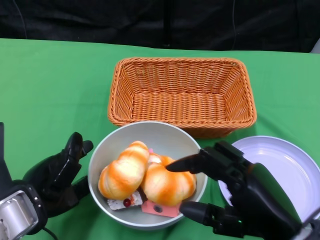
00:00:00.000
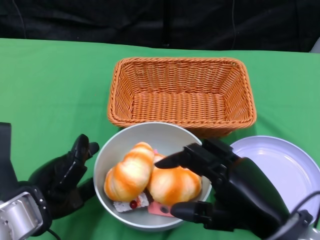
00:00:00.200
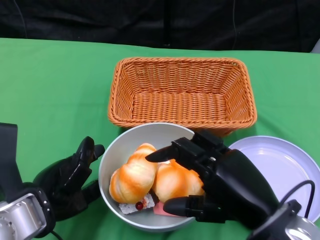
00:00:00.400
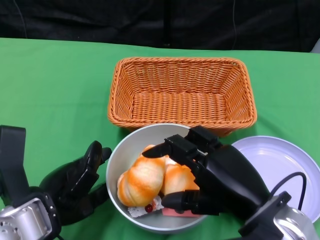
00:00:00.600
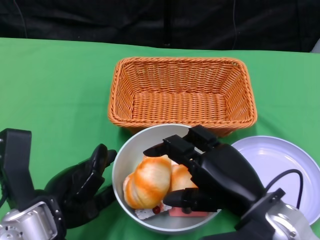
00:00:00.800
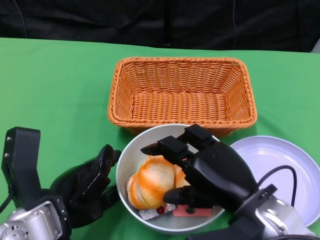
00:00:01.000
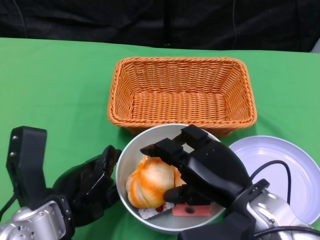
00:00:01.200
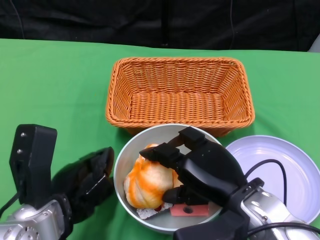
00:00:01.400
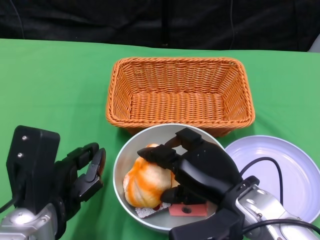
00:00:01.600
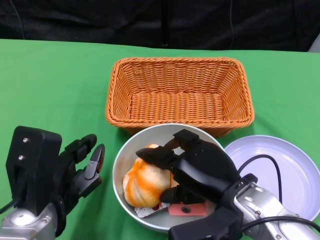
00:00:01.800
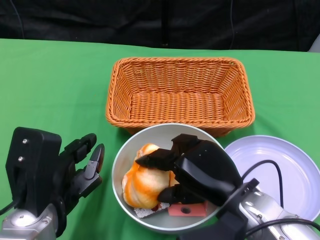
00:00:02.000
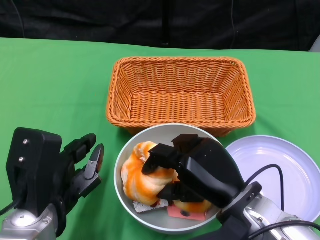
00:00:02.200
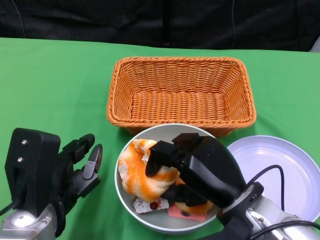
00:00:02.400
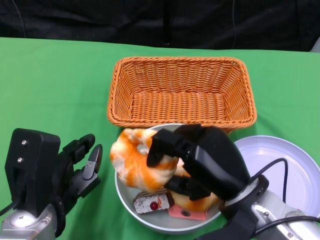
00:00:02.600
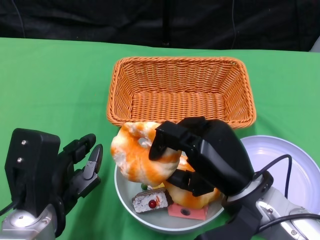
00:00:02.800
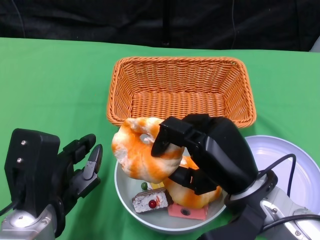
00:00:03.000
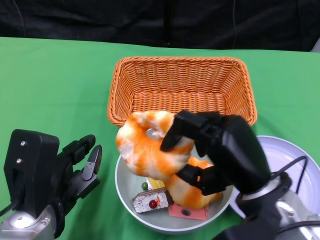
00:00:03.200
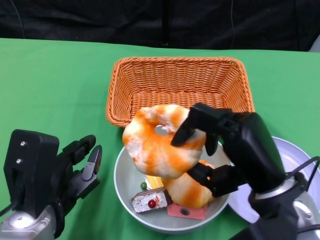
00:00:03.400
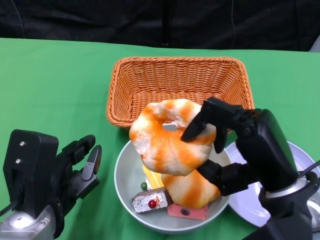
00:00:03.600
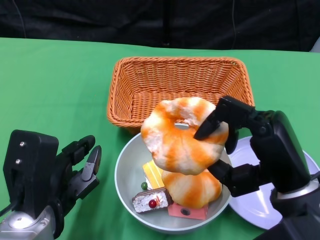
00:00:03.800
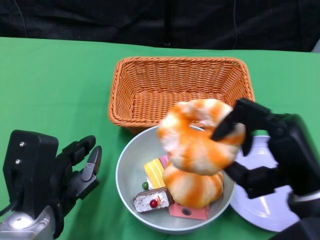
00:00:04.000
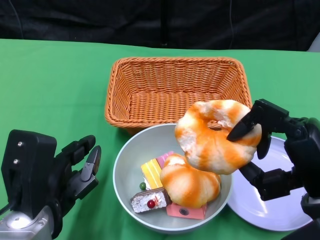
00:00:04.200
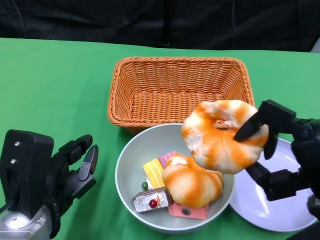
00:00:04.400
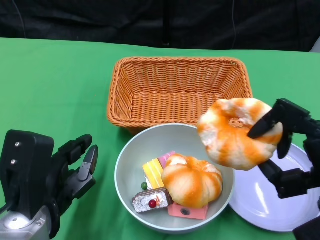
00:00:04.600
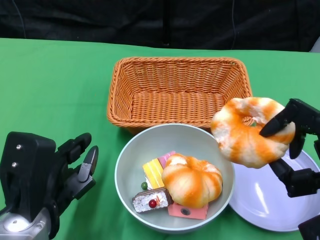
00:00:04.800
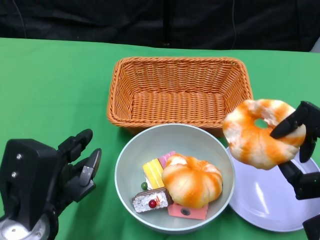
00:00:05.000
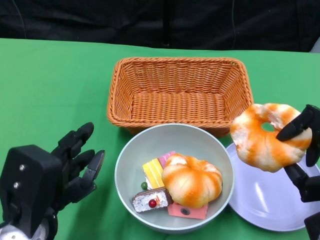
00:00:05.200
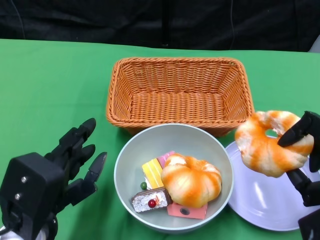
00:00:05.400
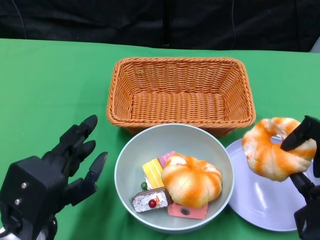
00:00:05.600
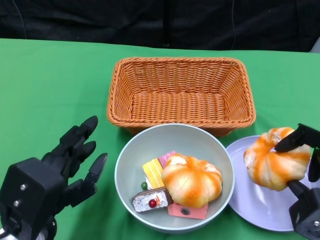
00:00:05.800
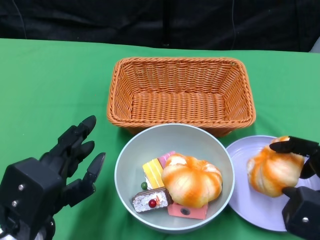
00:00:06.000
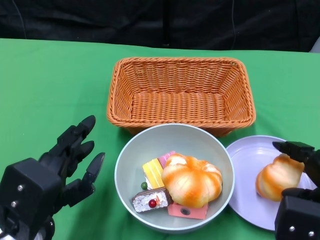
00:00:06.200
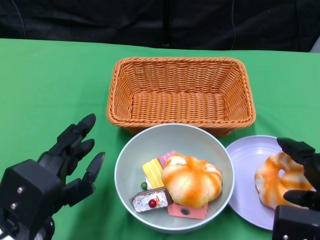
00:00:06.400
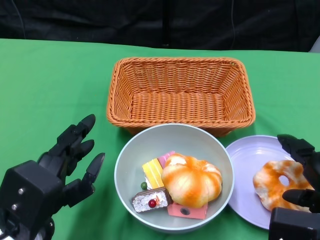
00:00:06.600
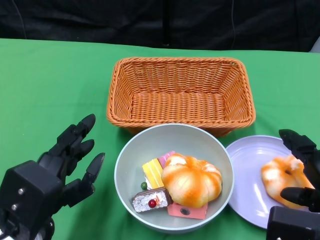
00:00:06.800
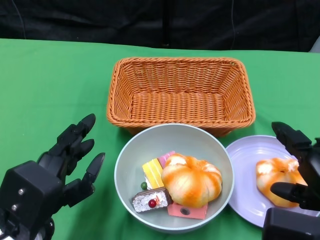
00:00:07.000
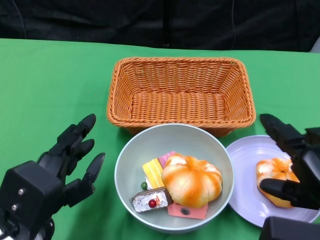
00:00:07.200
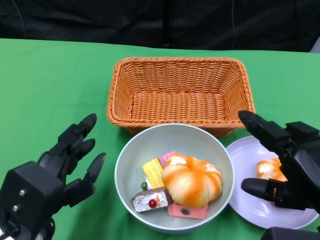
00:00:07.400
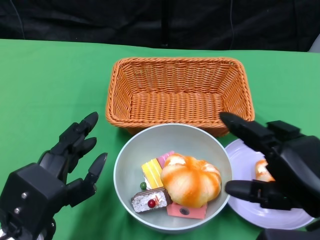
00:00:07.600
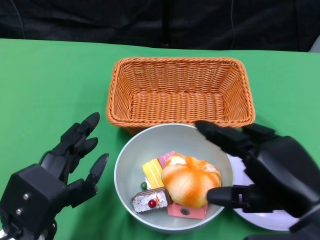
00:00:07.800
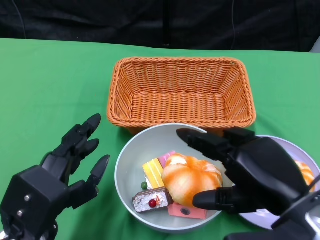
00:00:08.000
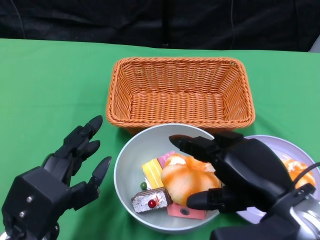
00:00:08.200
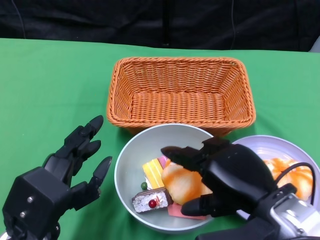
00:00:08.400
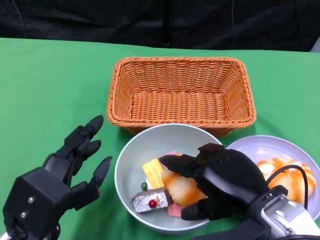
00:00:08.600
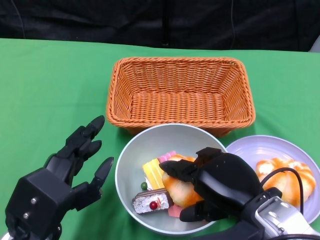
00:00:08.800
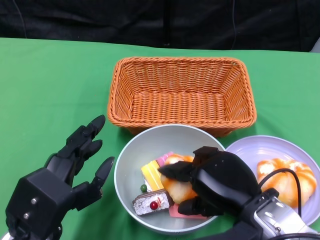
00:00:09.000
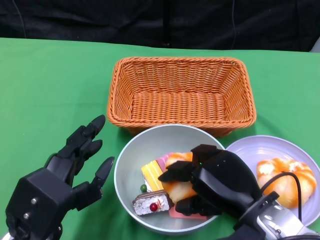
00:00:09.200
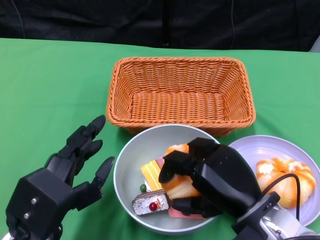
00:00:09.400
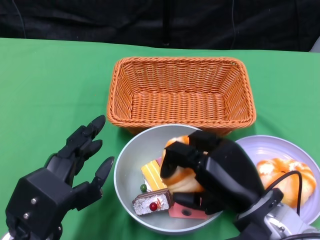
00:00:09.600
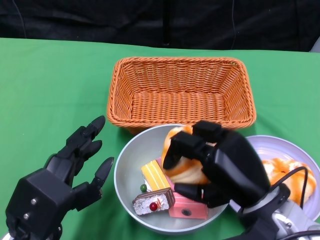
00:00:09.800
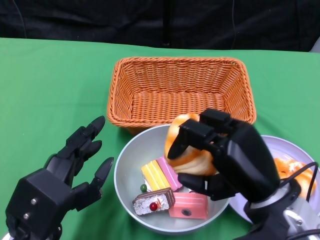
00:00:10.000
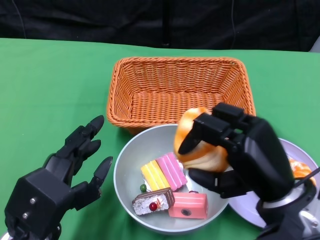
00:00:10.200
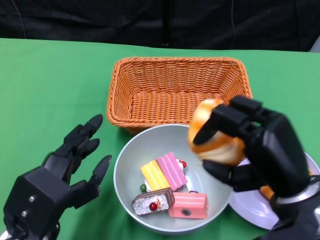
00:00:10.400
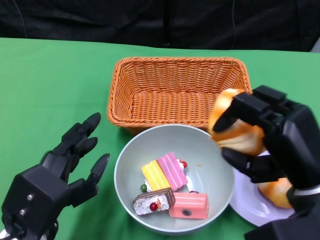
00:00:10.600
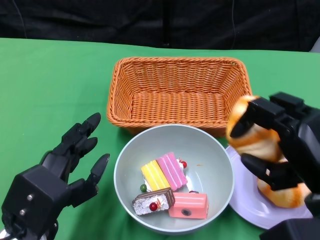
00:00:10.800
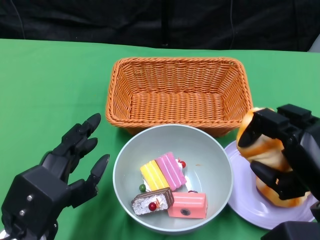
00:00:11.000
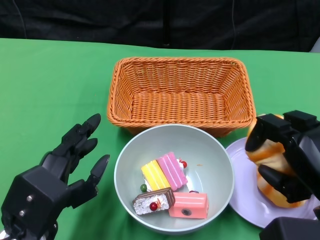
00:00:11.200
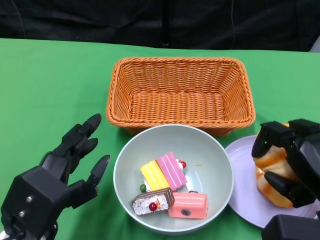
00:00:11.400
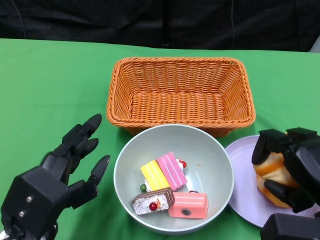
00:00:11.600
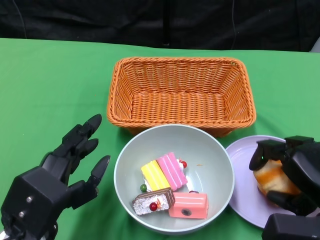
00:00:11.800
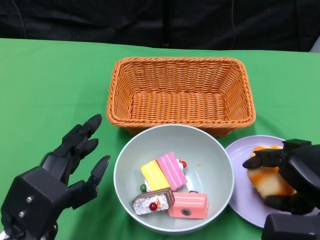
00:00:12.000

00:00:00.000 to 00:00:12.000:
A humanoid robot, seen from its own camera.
00:00:00.000 to 00:00:01.600: The right hand is displaced forward and to the left by roughly 10 cm.
00:00:03.000 to 00:00:04.400: The right hand moves to the right, roughly 10 cm.
00:00:04.400 to 00:00:06.000: The right hand changes place by roughly 5 cm.
00:00:06.000 to 00:00:07.600: The right hand travels to the left by about 5 cm.
00:00:07.600 to 00:00:09.000: The right hand heads to the left and downward, covering roughly 10 cm.
00:00:09.000 to 00:00:10.400: The right hand changes place by some 5 cm.
00:00:10.400 to 00:00:12.000: The right hand heads to the right, covering some 5 cm.

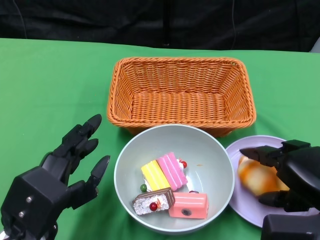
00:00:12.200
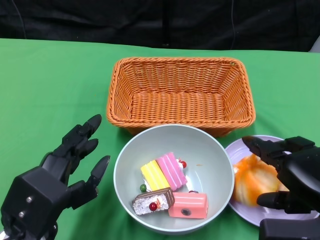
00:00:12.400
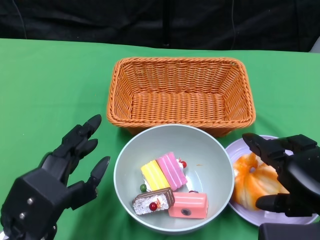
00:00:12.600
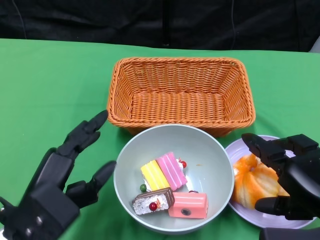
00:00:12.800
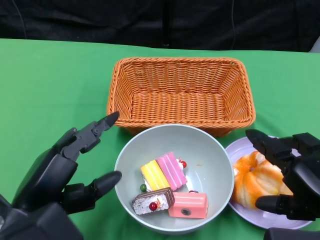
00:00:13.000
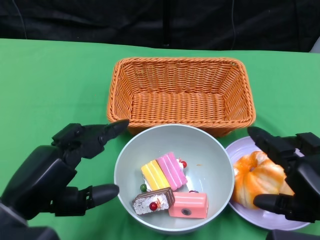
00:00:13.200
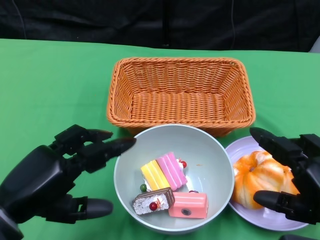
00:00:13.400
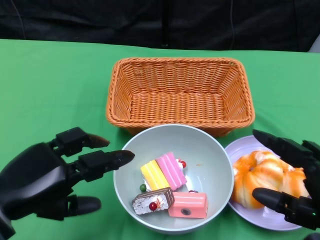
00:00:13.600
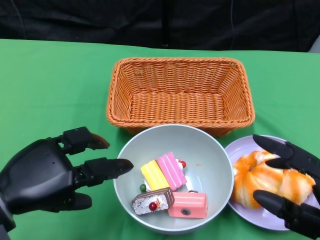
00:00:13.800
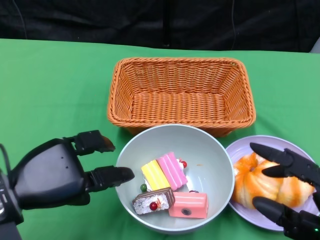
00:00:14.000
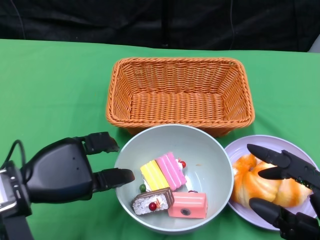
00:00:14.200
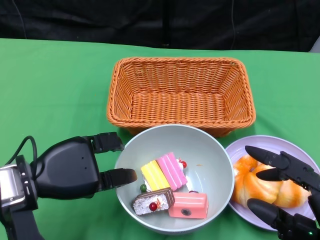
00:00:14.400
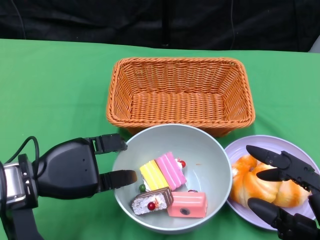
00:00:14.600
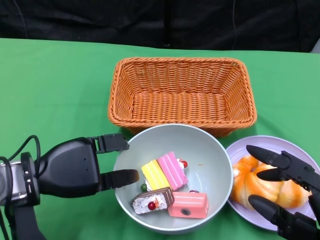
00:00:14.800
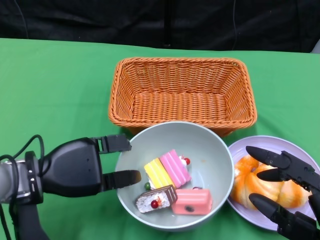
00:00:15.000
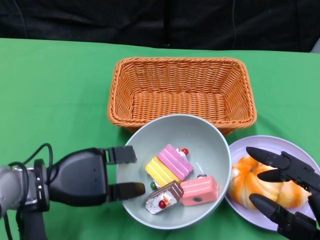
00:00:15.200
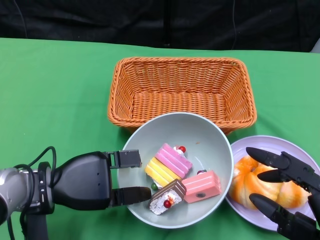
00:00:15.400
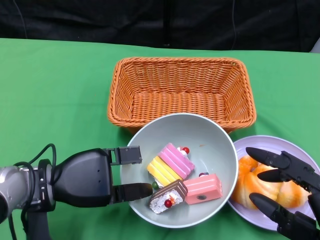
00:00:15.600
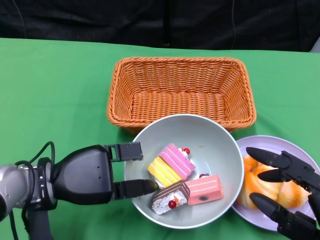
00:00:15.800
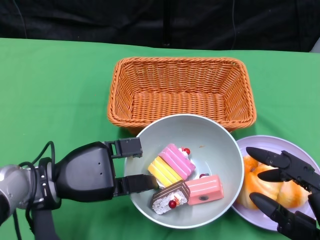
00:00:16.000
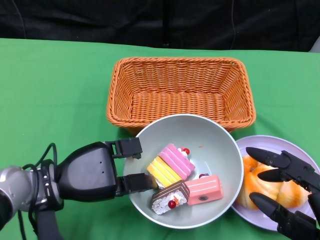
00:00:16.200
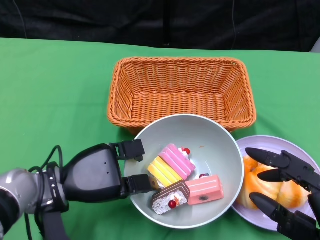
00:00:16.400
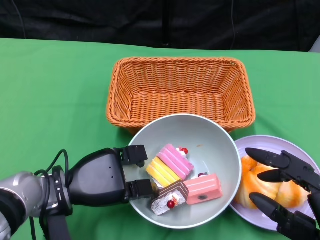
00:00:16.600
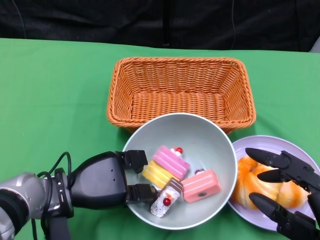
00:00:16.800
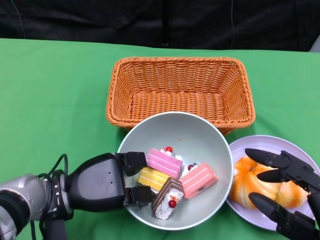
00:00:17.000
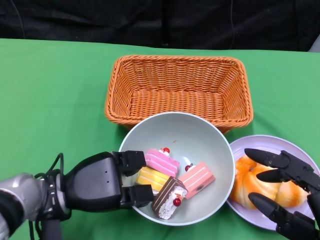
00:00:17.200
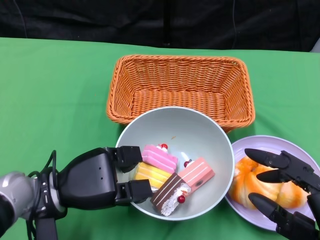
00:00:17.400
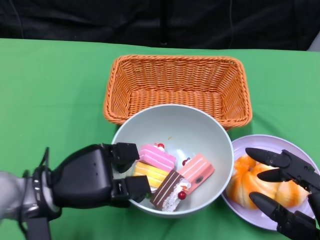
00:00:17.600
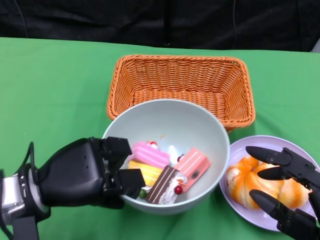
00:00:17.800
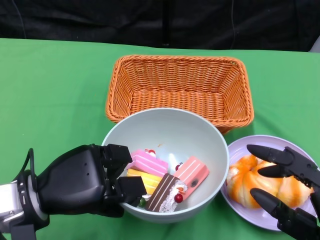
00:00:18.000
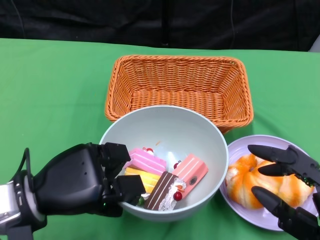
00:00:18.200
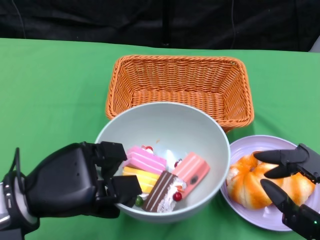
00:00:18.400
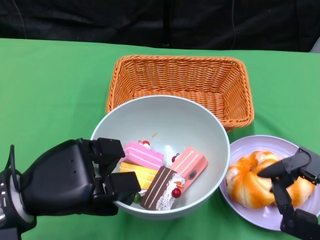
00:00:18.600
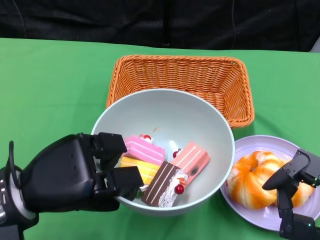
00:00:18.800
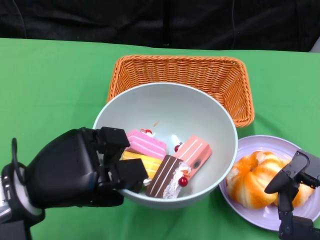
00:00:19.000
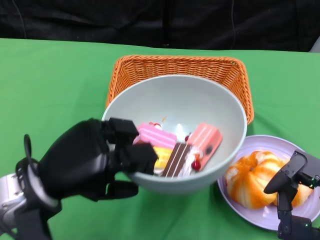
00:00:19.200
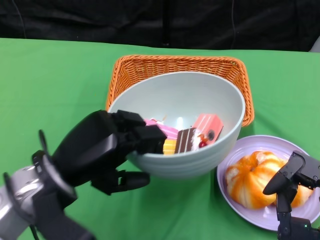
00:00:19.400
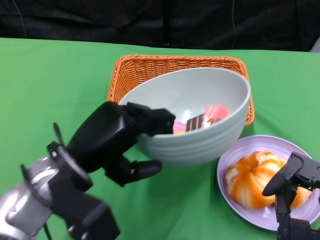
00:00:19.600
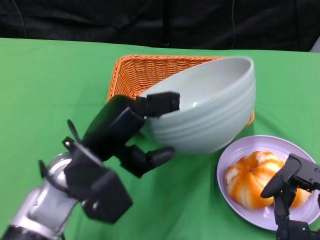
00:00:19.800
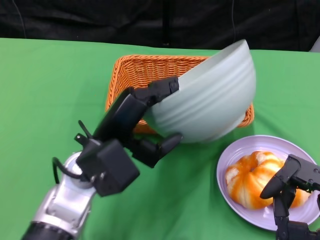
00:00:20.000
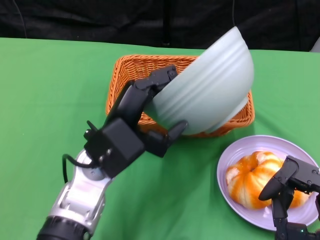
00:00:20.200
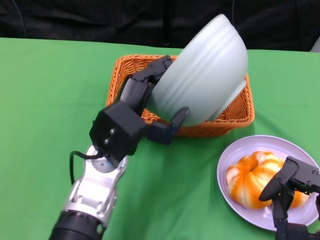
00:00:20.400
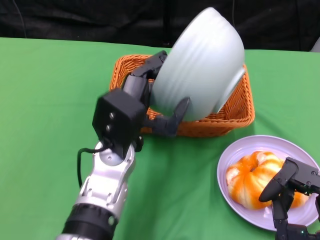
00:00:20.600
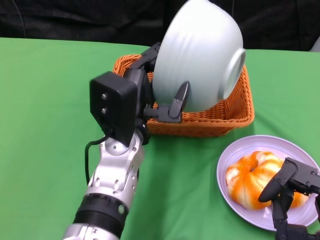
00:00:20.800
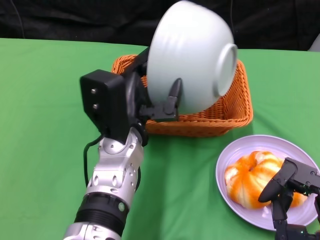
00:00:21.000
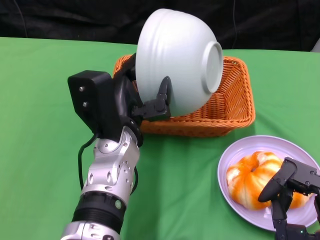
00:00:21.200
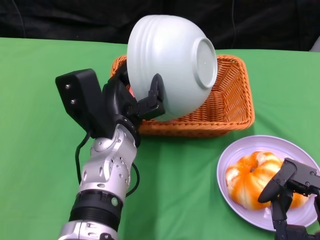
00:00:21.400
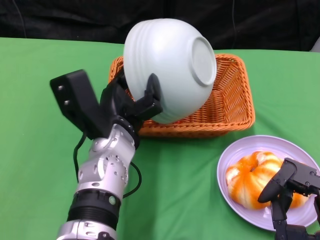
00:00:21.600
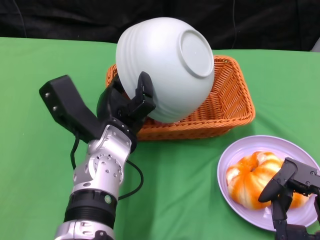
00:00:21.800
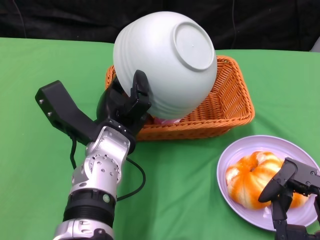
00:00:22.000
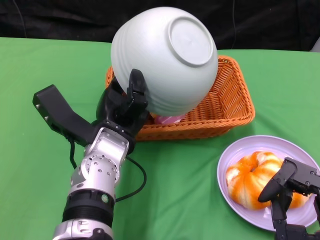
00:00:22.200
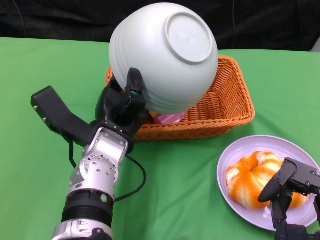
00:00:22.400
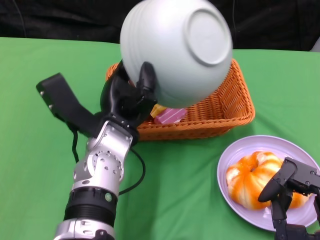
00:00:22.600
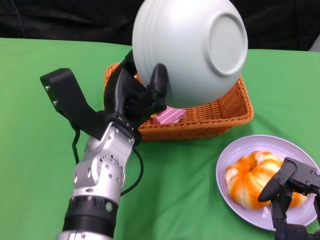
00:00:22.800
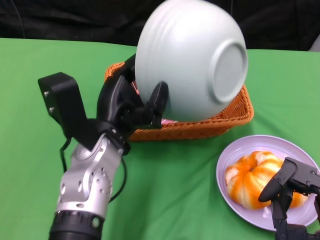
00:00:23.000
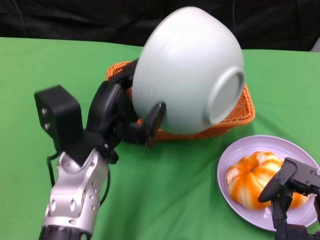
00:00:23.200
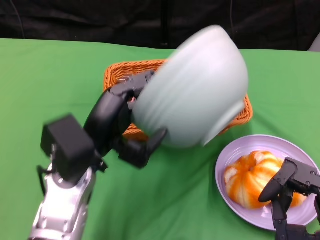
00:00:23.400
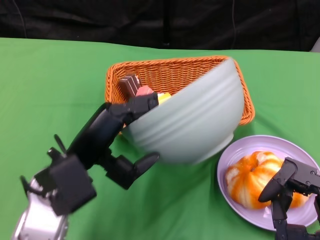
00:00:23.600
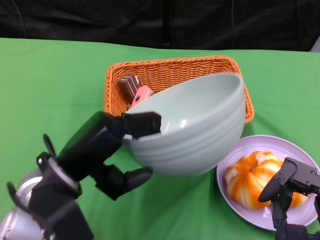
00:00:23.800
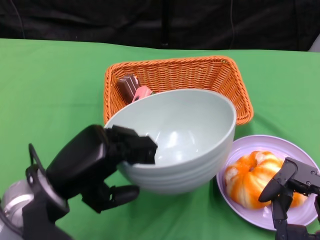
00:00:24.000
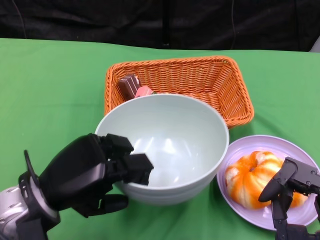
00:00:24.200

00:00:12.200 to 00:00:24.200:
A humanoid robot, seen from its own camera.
Step, 00:00:12.800 to 00:00:17.000: Grasp the bowl with the left gripper.
Step, 00:00:17.200 to 00:00:21.800: Pour the cake into the basket with the left gripper.
00:00:12.200 to 00:00:13.800: The right hand moves backward, some 5 cm. The left hand changes place by approximately 5 cm.
00:00:13.800 to 00:00:15.200: The left hand goes about 10 cm forward and downward.
00:00:15.200 to 00:00:16.600: The hands move only a little.
00:00:16.600 to 00:00:18.200: The left hand goes some 5 cm upward.
00:00:18.200 to 00:00:19.800: The left hand shifts about 5 cm to the right.
00:00:19.800 to 00:00:21.200: The left hand moves to the right, approximately 5 cm.
00:00:22.600 to 00:00:24.200: The left hand shifts roughly 15 cm to the left and backward.
